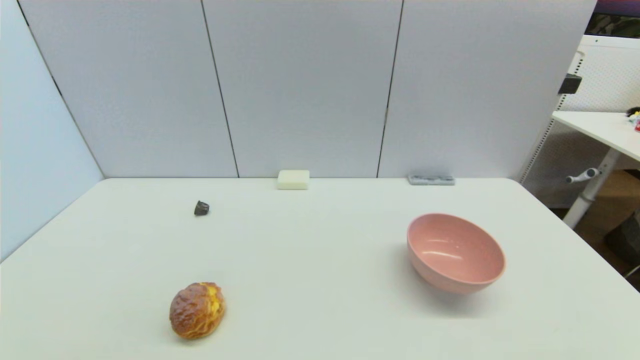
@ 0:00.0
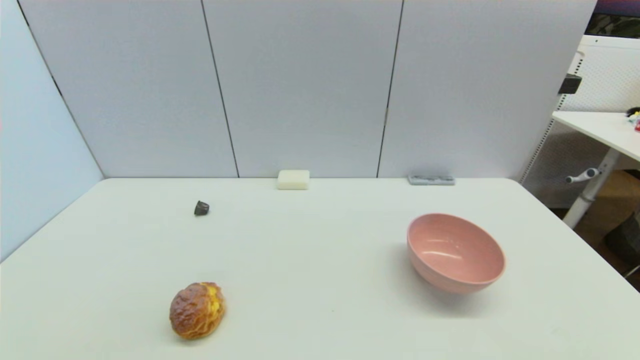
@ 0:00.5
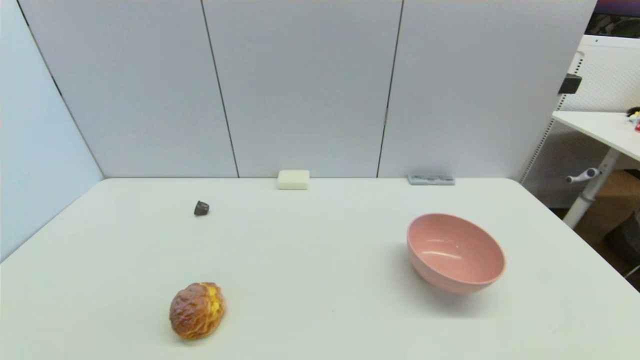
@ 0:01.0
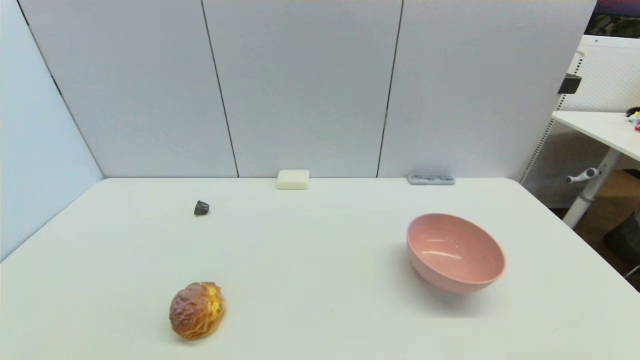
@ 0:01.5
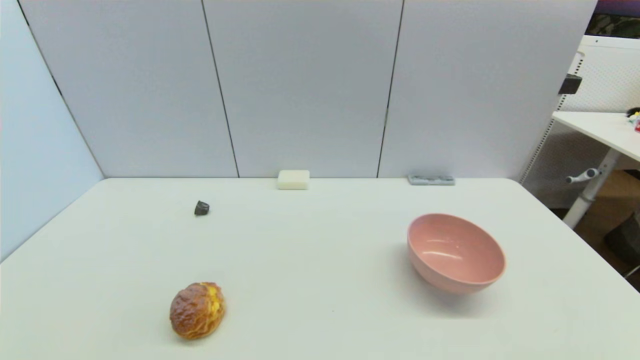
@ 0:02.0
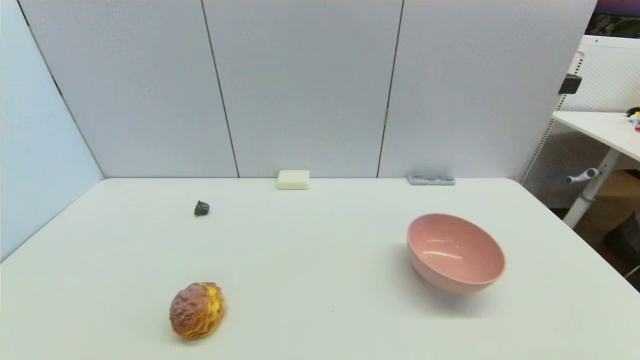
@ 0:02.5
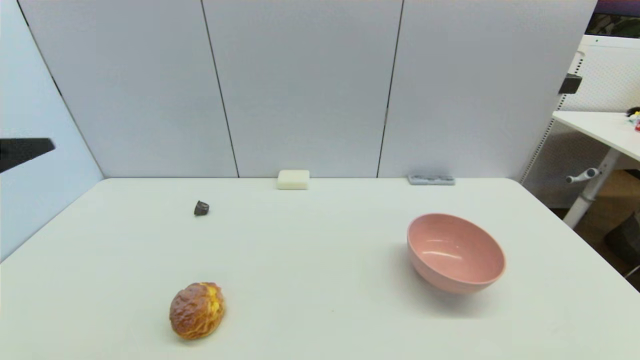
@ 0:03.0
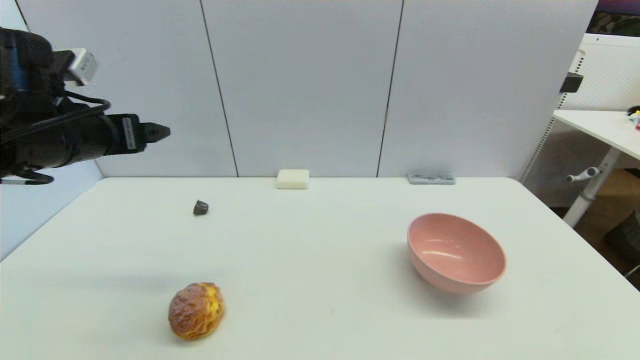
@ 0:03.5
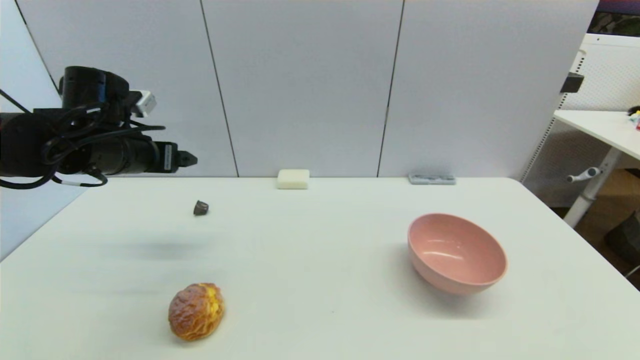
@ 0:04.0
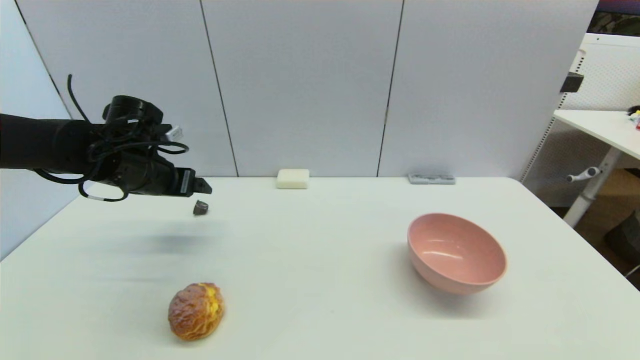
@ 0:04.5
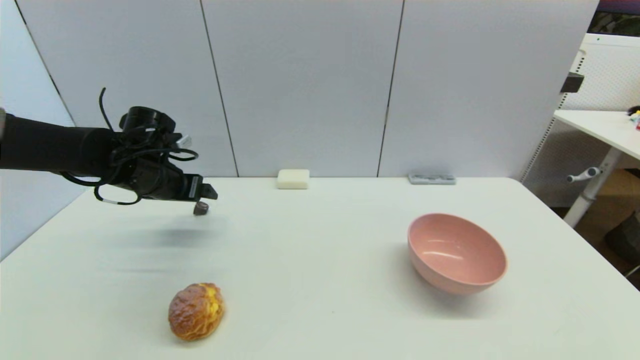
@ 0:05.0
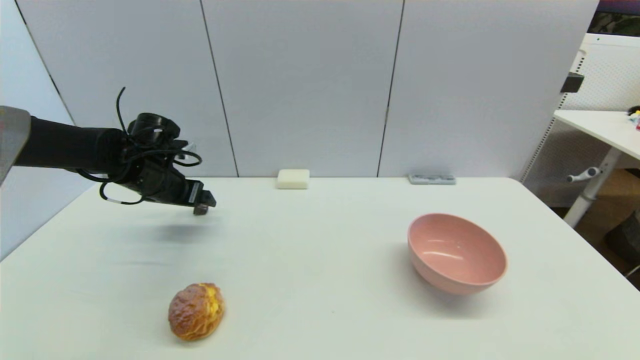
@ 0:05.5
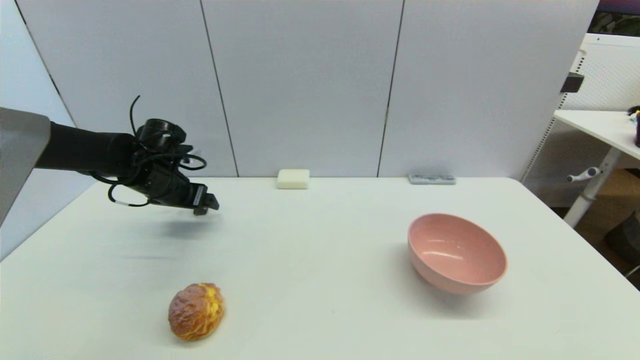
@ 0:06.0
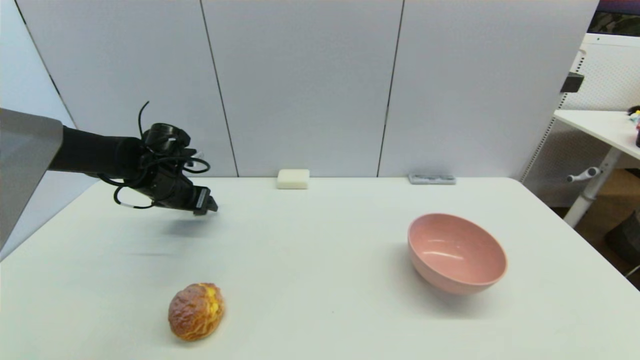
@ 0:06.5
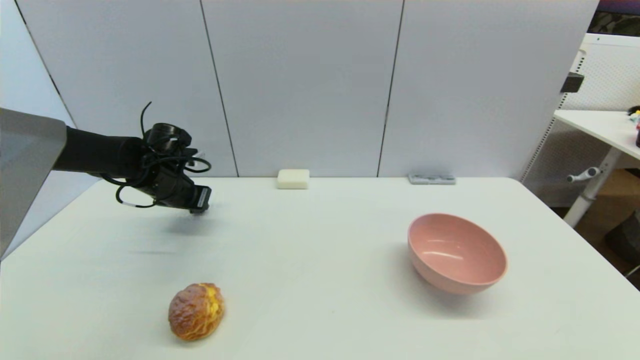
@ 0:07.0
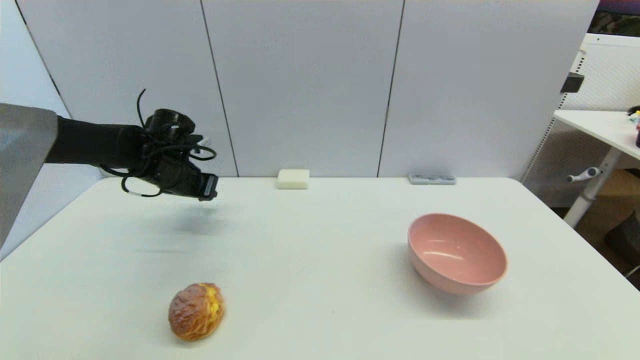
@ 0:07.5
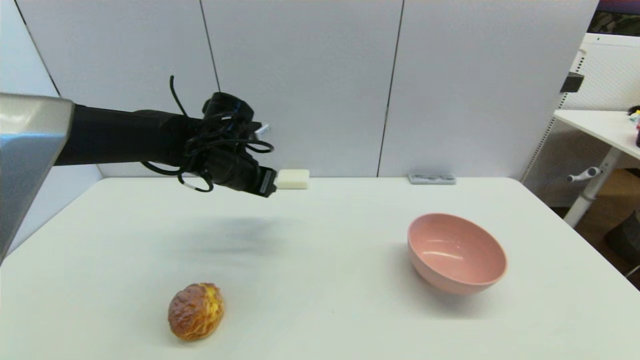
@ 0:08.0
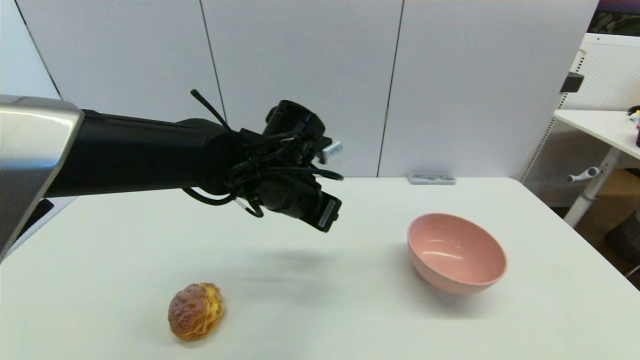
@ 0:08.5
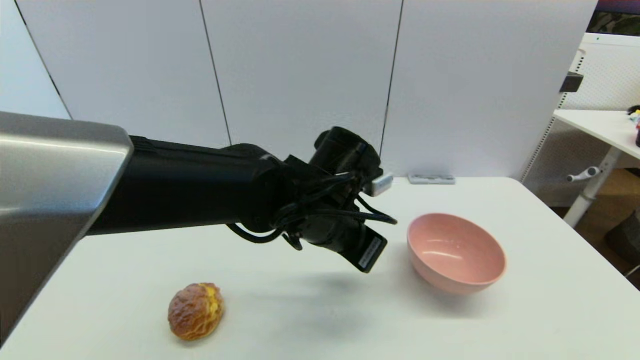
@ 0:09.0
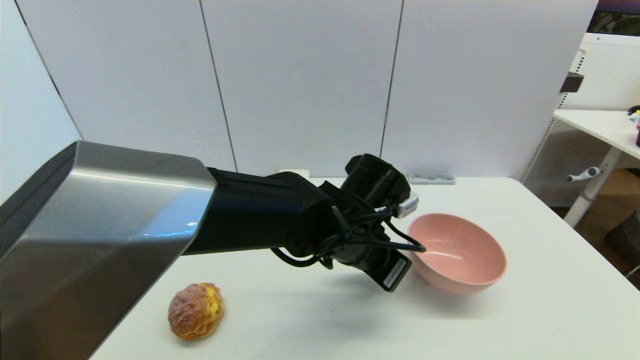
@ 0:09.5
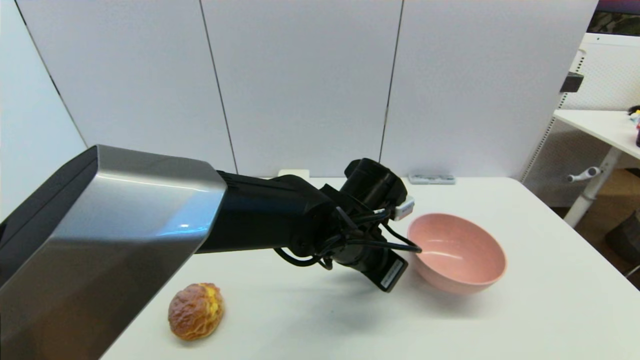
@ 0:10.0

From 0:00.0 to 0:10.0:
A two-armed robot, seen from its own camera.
Step, from 0:02.0 to 0:06.5: Grasp the coffee capsule with left gripper.
From 0:02.0 to 0:04.0: The left gripper travels forward by some 35 cm.
From 0:04.0 to 0:06.0: The left gripper goes approximately 10 cm downward and forward.
From 0:06.0 to 0:08.0: The left gripper heads to the right, covering approximately 15 cm, and closes up.
From 0:08.0 to 0:10.0: The left gripper travels to the right and backward by roughly 20 cm.

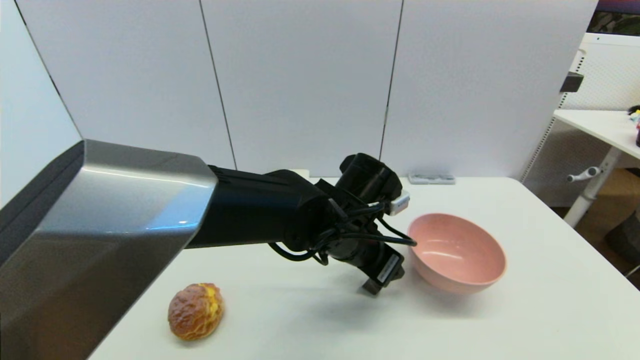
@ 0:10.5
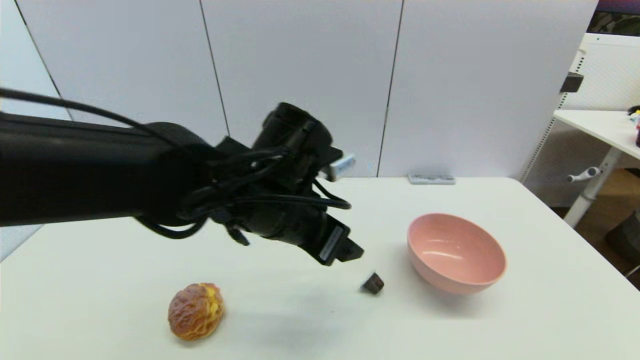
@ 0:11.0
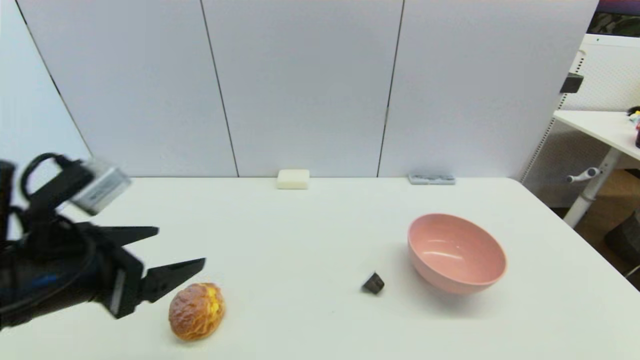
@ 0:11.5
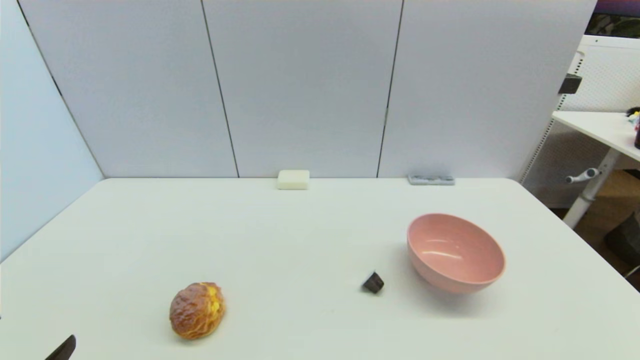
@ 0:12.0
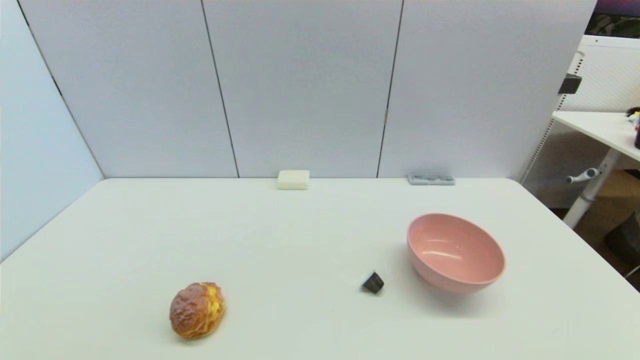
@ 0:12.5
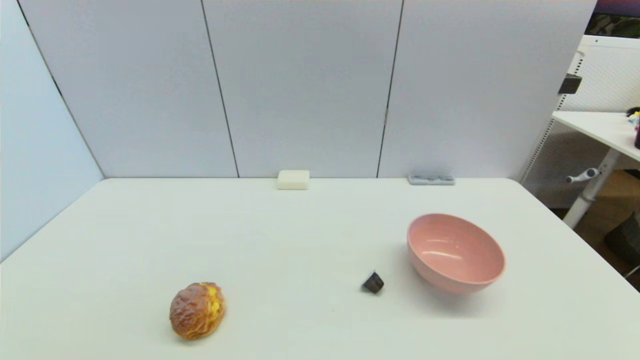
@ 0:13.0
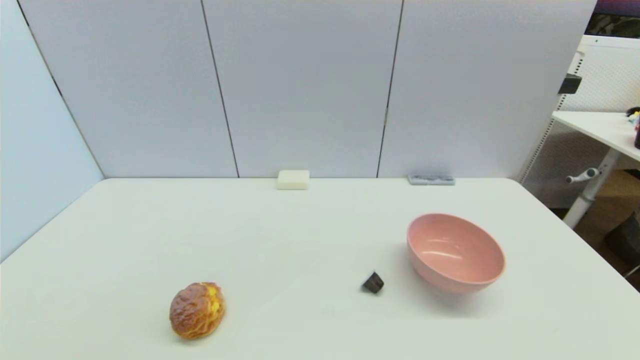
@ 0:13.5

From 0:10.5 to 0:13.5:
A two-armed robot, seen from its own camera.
From 0:10.5 to 0:12.0: The left gripper heads to the left and backward, covering approximately 40 cm.
